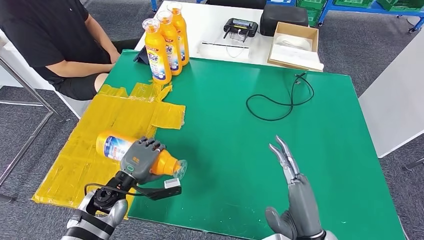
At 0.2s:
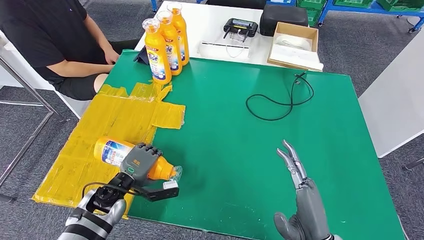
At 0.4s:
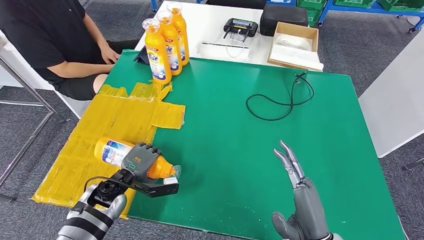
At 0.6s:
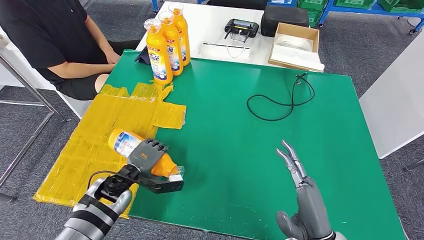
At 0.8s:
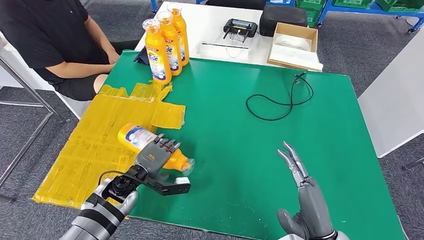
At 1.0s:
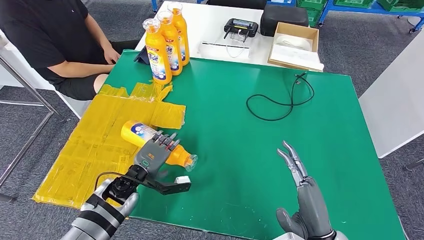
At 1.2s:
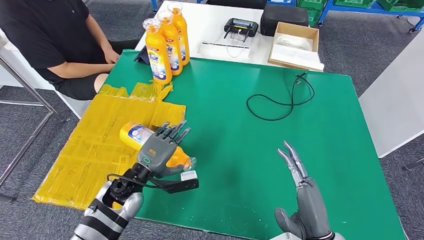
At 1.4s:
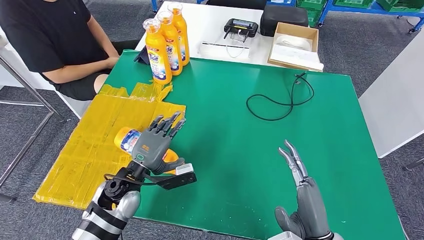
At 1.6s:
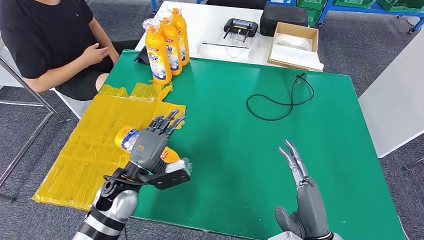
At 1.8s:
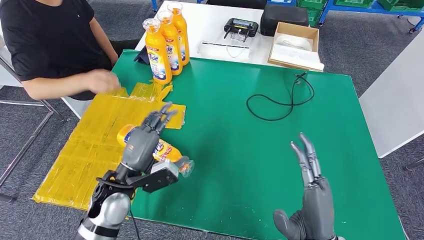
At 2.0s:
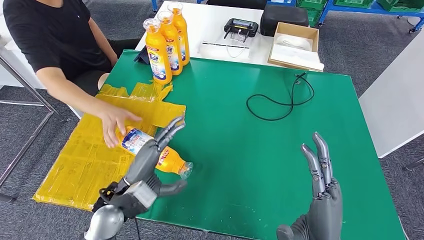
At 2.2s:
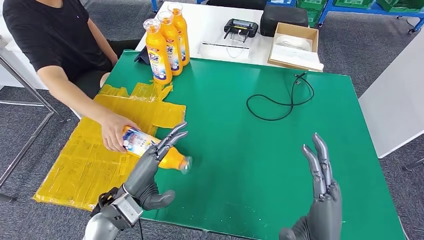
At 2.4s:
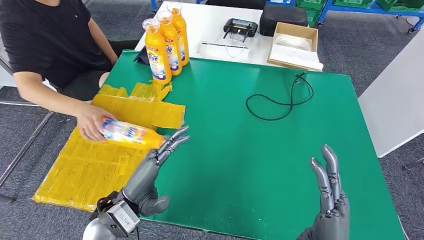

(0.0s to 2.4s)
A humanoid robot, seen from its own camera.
Step, 0.0s - 2.2s: Flip the fast-moving consumer goods bottle to the front side.
0.0s - 1.2s: The left hand changes place by some 5 cm.
1.2s - 2.4s: The left hand moves backward and upward, roughly 10 cm.
